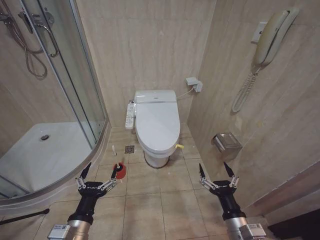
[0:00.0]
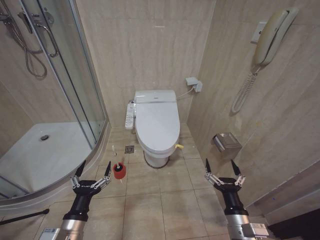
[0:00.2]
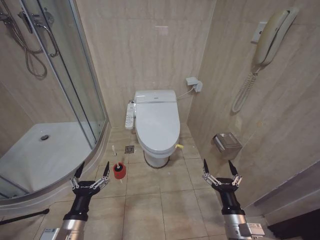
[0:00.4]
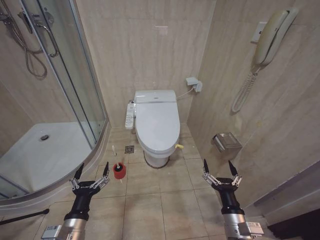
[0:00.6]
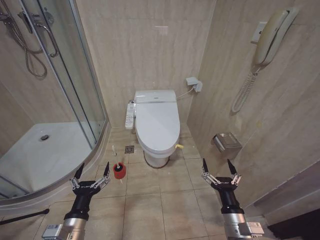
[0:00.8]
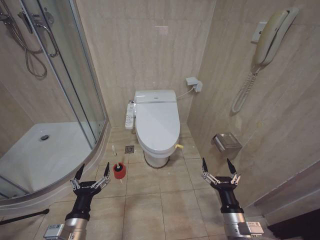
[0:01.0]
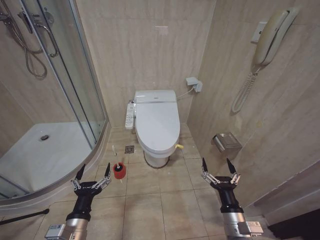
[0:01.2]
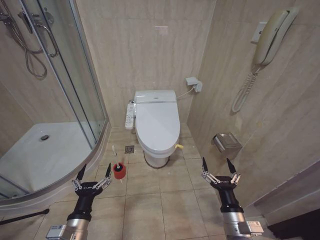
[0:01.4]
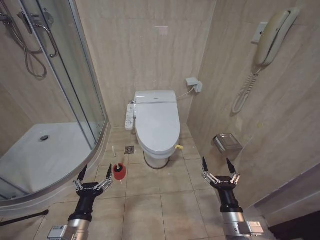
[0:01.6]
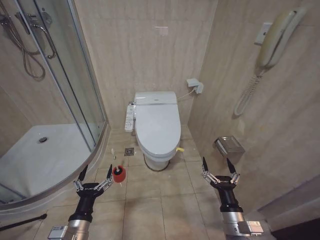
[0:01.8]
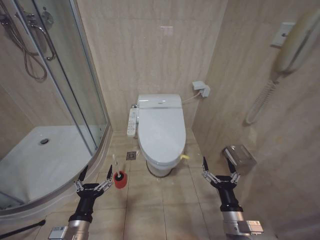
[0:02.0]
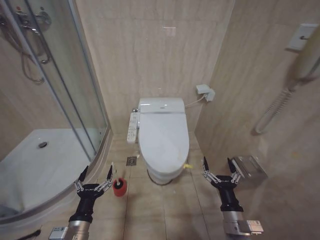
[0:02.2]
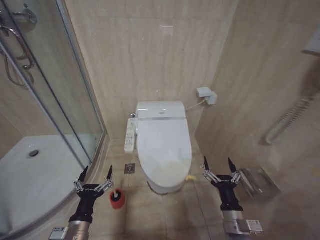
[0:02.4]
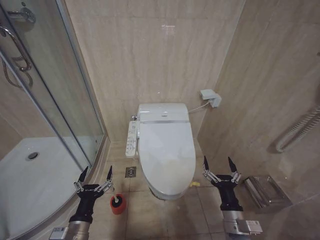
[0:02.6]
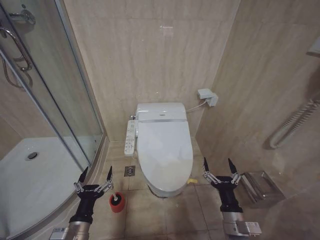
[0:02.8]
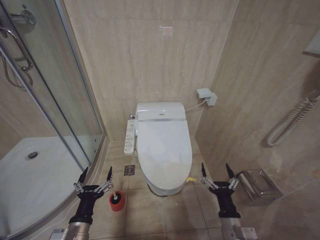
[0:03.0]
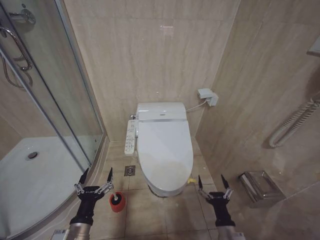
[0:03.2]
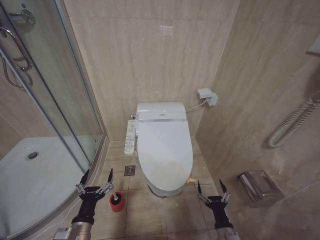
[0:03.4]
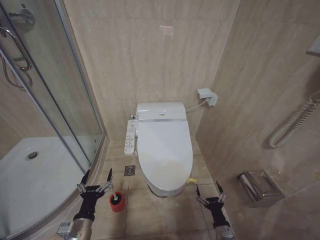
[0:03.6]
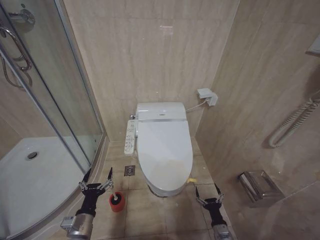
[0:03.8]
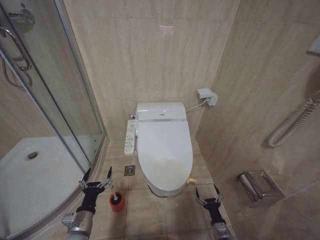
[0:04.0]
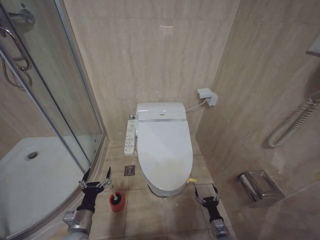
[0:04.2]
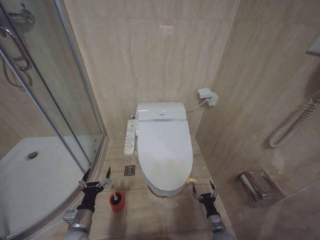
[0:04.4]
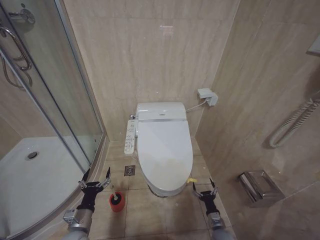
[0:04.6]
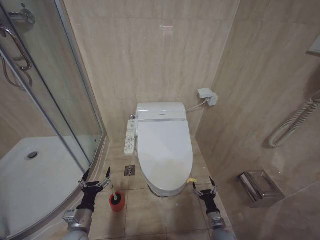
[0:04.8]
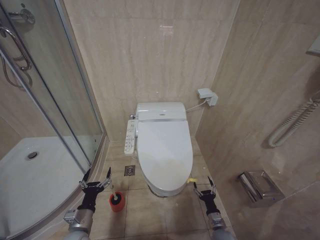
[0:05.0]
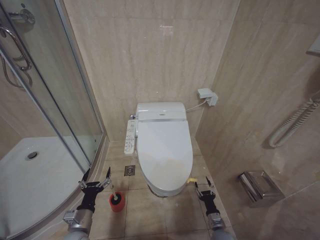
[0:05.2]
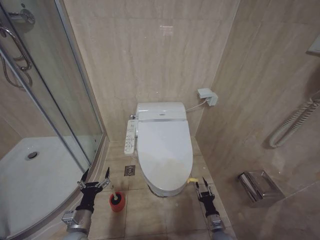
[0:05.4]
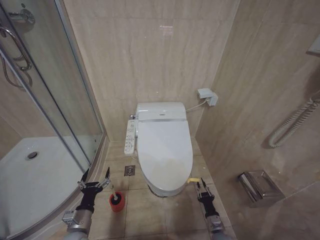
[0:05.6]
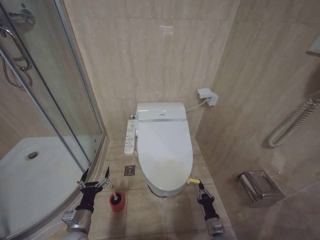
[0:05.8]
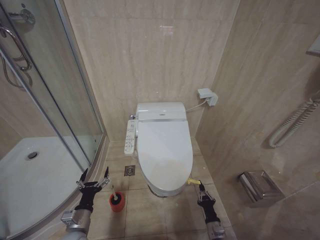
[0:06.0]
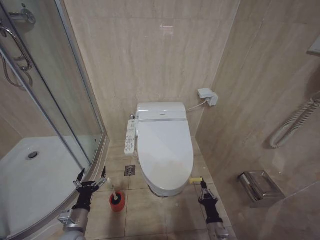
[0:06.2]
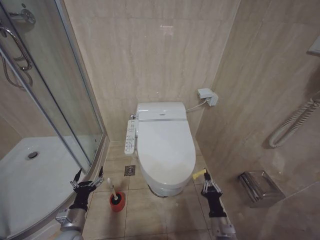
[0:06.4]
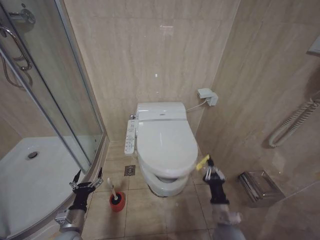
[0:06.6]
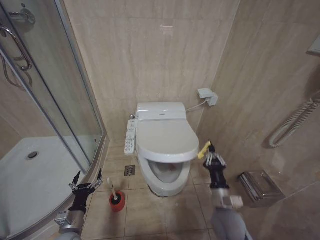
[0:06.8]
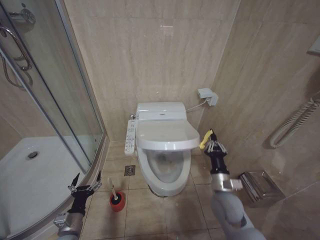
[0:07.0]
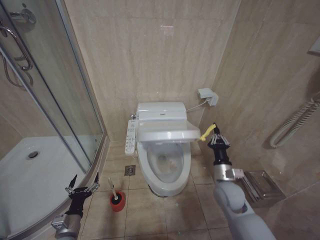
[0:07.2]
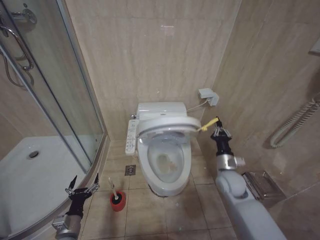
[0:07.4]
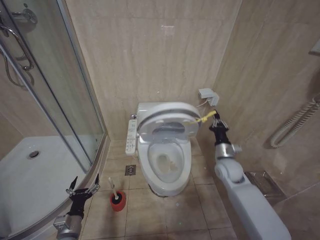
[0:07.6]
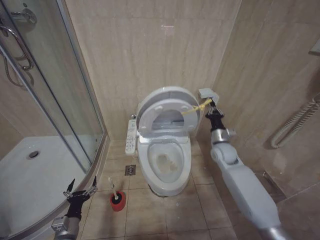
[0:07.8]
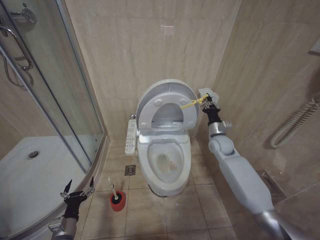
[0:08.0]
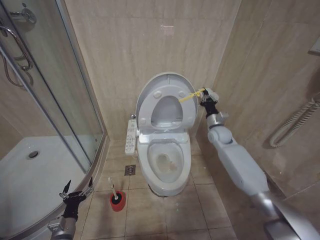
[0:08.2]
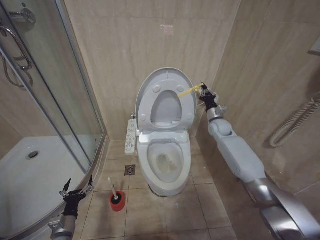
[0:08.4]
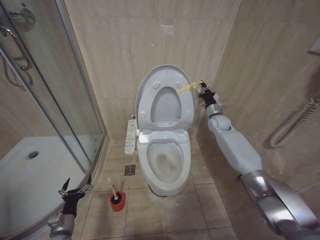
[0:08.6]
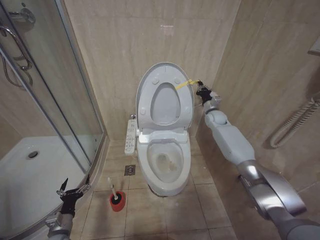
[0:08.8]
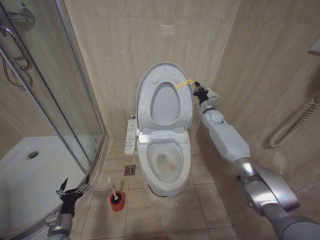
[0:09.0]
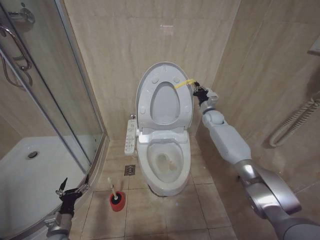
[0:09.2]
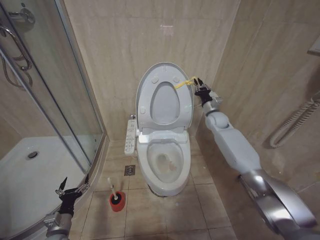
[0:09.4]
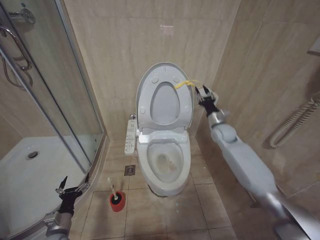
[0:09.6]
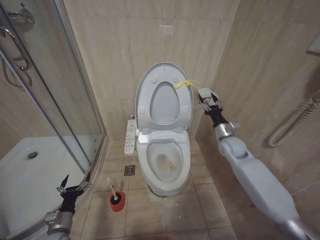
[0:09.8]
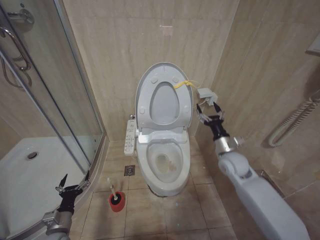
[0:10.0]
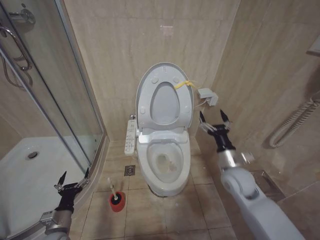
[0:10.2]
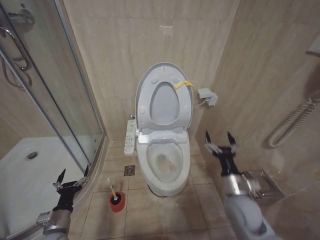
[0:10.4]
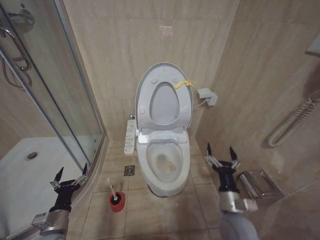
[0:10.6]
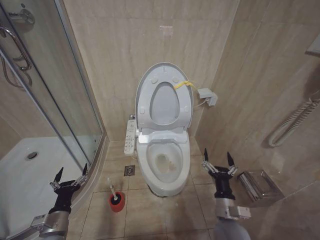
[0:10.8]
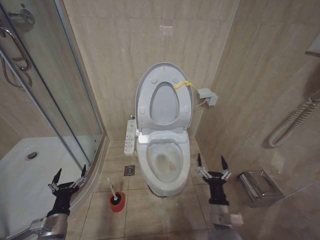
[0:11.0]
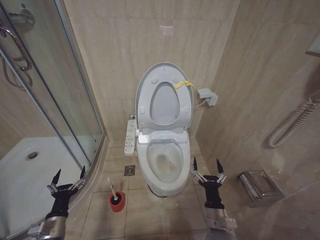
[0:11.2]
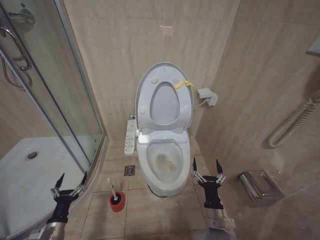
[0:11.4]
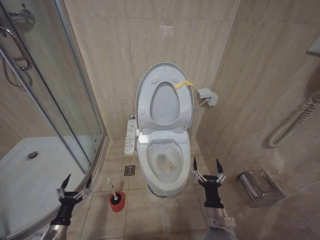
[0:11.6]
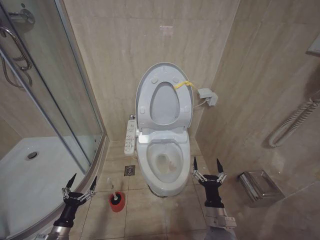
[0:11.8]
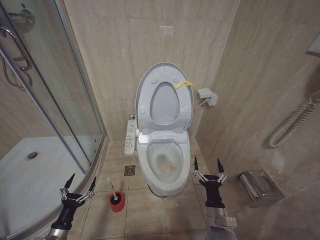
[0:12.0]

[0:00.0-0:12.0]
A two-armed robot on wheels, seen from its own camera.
Task of the whole recording: Open the toilet lid, clean the toilet bowl with a toilet brush, close the toilet lid, and flush.
0:03.0 to 0:04.4: The left gripper is displaced downward and forward by some 10 cm. Meanwhile the right gripper moves downward, some 25 cm.
0:04.4 to 0:06.0: The right gripper closes up.
0:06.0 to 0:07.6: The right gripper is displaced upward and forward by approximately 35 cm.
0:07.6 to 0:09.0: The left gripper shifts by about 5 cm. Meanwhile the right gripper travels forward and upward by about 25 cm.
0:09.0 to 0:10.4: The left gripper shifts by roughly 5 cm, while the right gripper is displaced backward by approximately 35 cm, and opens up.
0:10.4 to 0:12.0: The right gripper heads downward, backward and to the left, covering roughly 20 cm, while the left gripper goes approximately 5 cm downward.

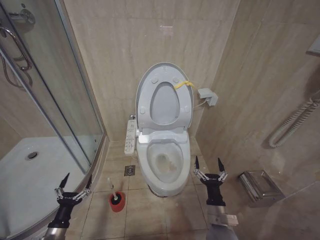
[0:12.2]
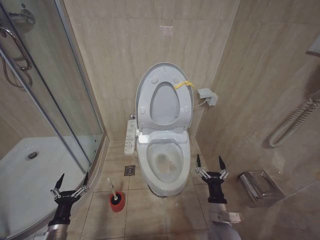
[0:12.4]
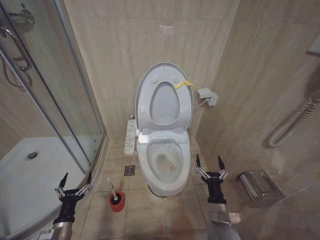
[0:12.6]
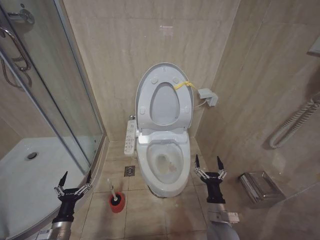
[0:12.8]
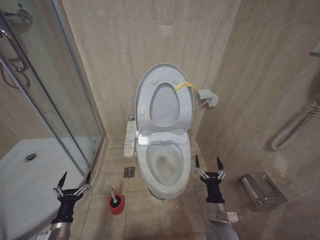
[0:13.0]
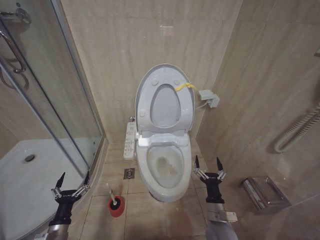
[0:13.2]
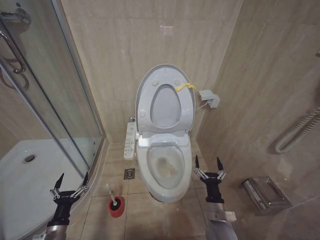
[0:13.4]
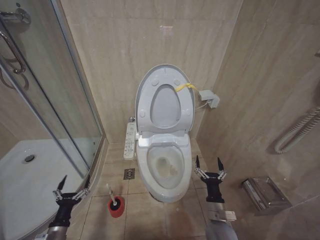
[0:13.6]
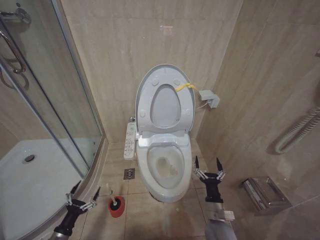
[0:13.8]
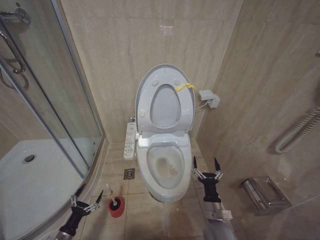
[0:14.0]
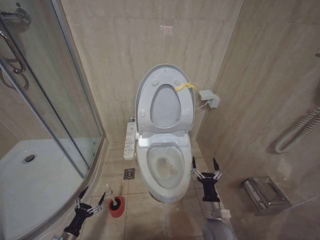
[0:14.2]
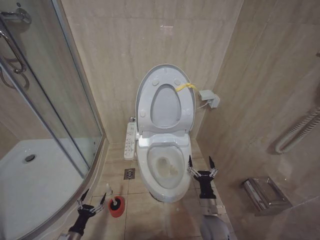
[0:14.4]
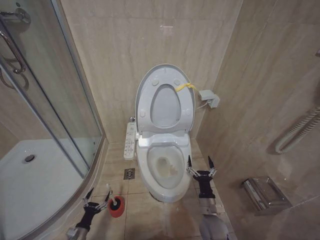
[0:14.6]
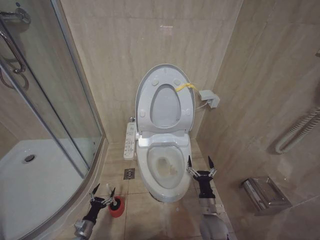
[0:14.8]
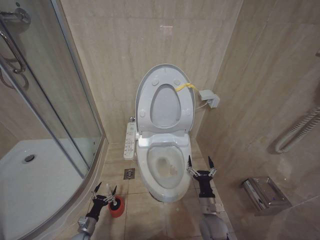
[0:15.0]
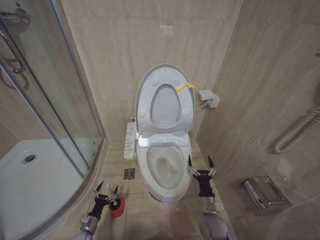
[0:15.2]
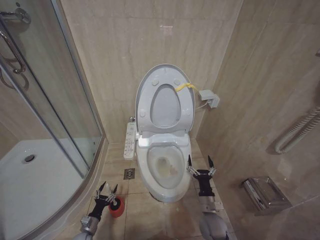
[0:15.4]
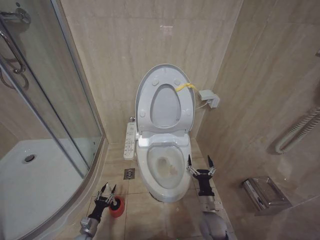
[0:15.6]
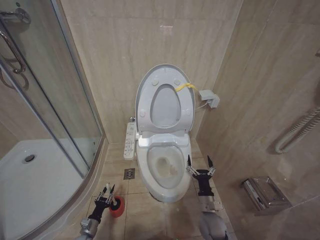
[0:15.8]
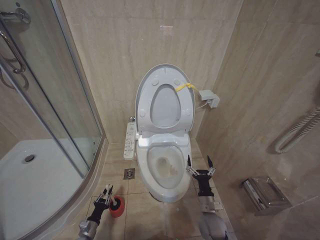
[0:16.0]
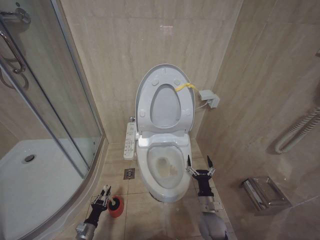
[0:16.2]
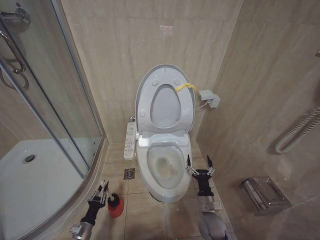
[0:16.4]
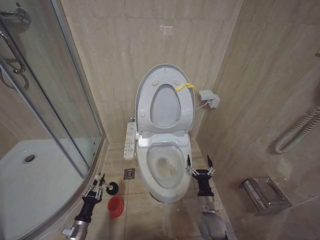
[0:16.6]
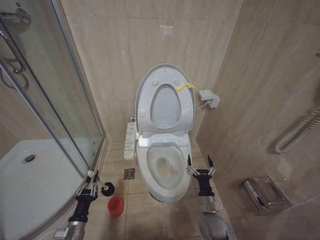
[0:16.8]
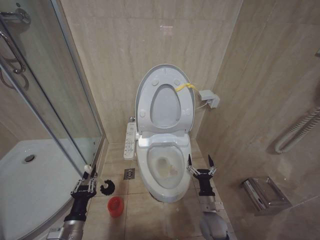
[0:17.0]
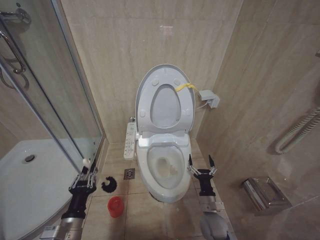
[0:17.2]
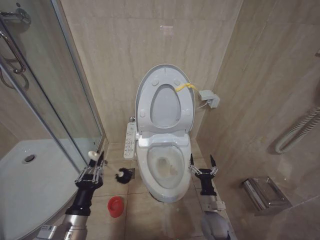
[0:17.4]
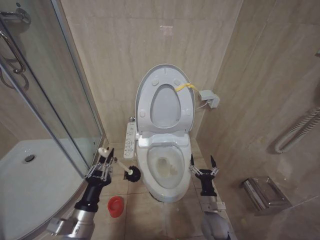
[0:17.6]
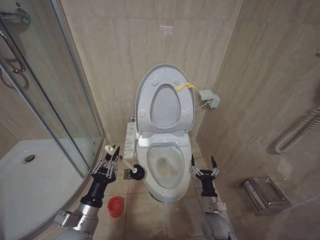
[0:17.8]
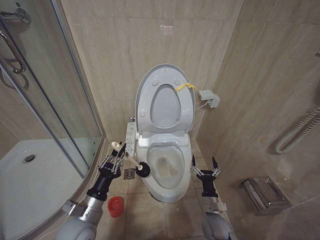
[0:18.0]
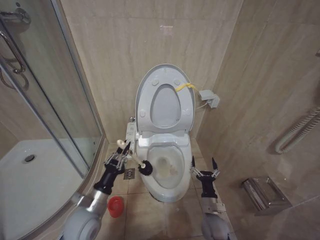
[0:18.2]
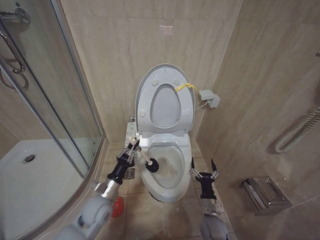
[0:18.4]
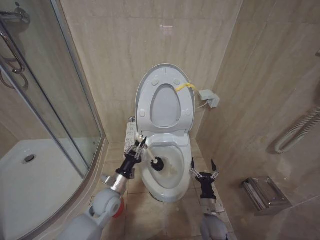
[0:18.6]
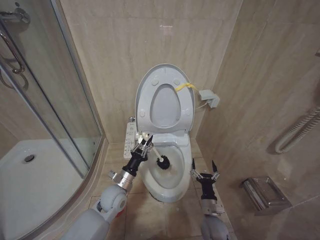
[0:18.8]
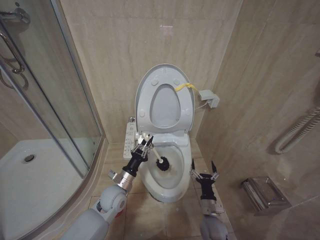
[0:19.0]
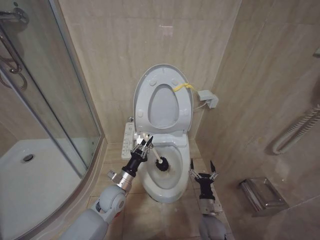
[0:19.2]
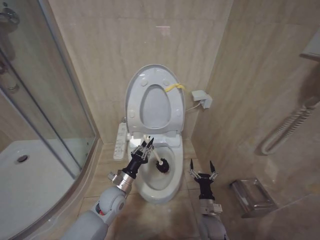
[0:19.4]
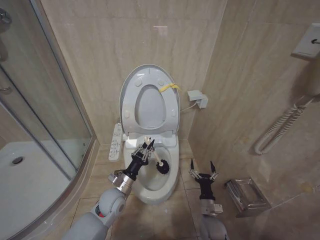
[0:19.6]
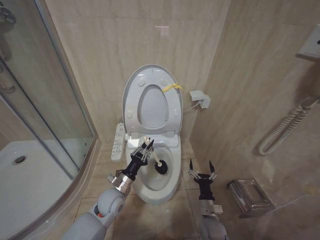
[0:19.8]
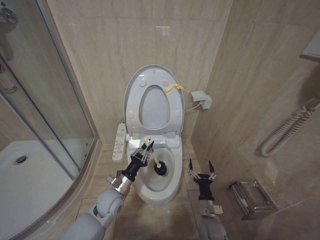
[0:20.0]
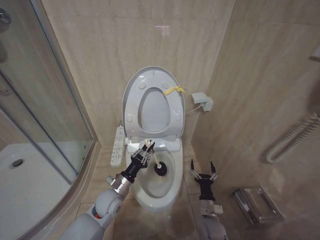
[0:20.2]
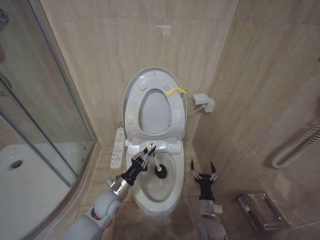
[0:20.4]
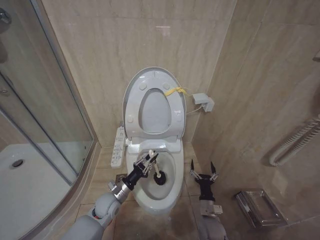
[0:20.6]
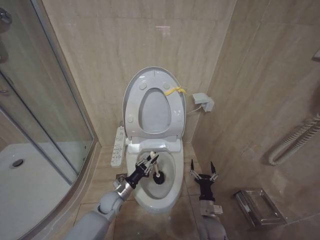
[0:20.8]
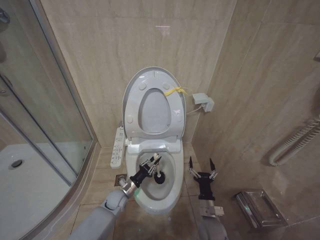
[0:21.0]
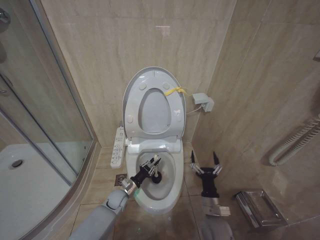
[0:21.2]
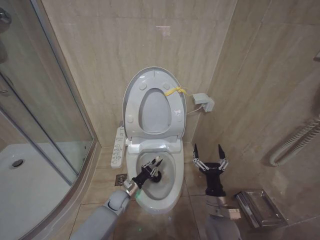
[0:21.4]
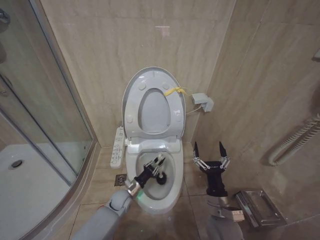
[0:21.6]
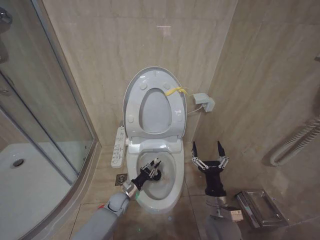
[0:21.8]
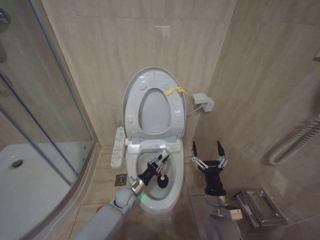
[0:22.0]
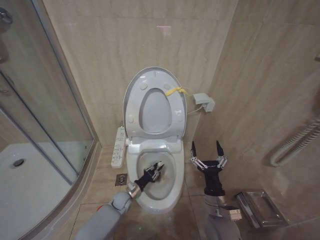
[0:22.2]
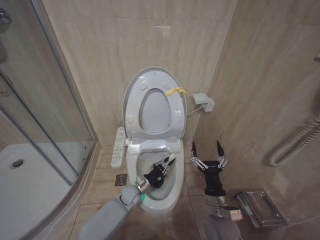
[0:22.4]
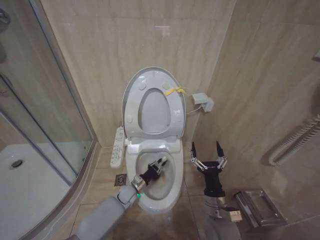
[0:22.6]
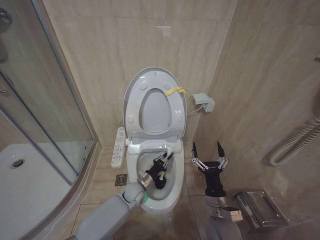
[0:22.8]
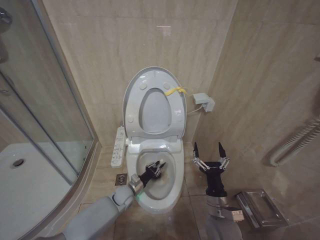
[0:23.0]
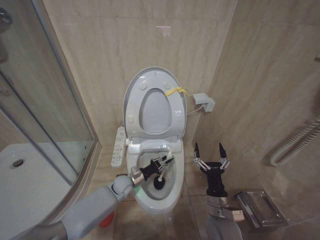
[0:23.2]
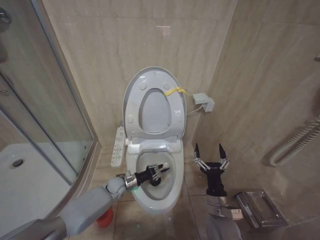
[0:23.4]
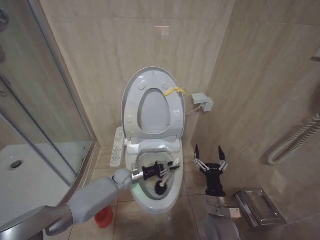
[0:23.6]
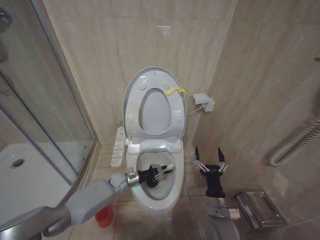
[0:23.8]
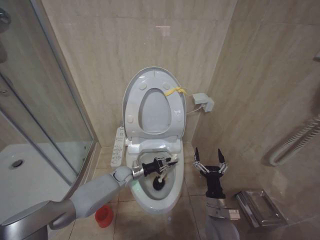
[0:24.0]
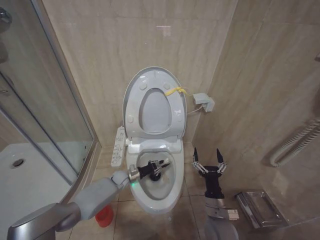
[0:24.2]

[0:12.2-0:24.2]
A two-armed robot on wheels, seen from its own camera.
Task of the whole recording: Open the toilet lid, clean the toilet bowl with a toilet brush, close the toilet lid, and flush.
0:12.2 to 0:13.8: The grippers stay close to where they were, moving slightly.
0:13.8 to 0:15.2: The left gripper shifts approximately 15 cm downward and forward.
0:15.2 to 0:16.6: The left gripper travels upward by roughly 10 cm, and closes up.
0:16.6 to 0:18.2: The left gripper shifts about 25 cm upward and to the right.
0:18.2 to 0:19.8: The left gripper moves forward and to the right, approximately 10 cm.
0:19.8 to 0:21.2: The left gripper is displaced downward and forward by some 15 cm.
0:21.2 to 0:22.6: The left gripper shifts by about 5 cm. The right gripper shifts about 10 cm upward.
0:22.6 to 0:24.2: The left gripper shifts approximately 10 cm forward and to the left.
